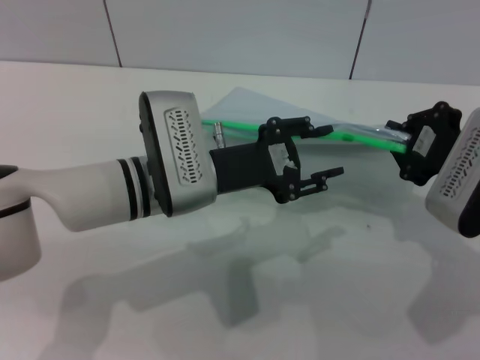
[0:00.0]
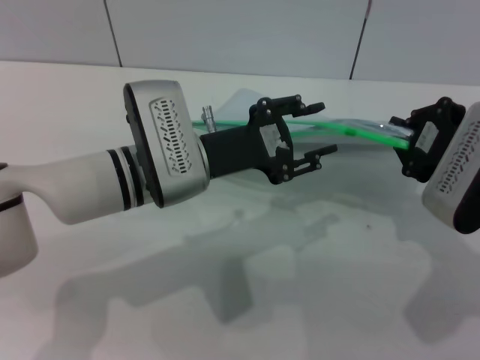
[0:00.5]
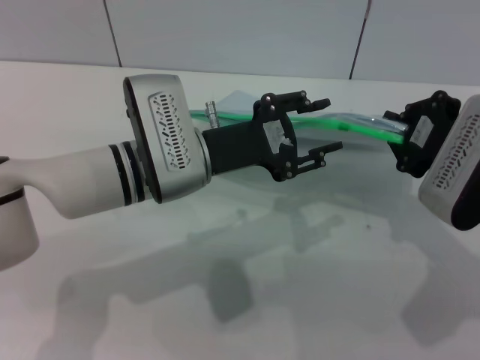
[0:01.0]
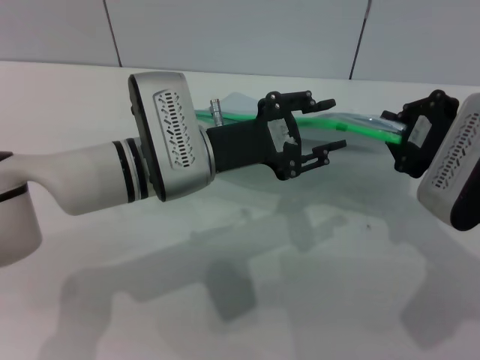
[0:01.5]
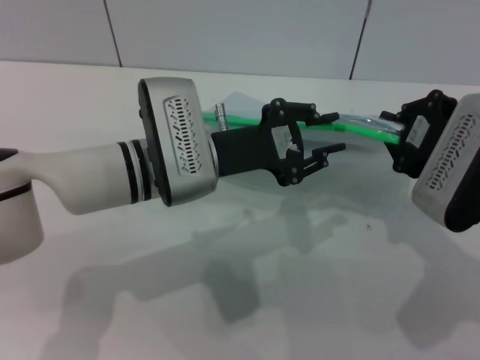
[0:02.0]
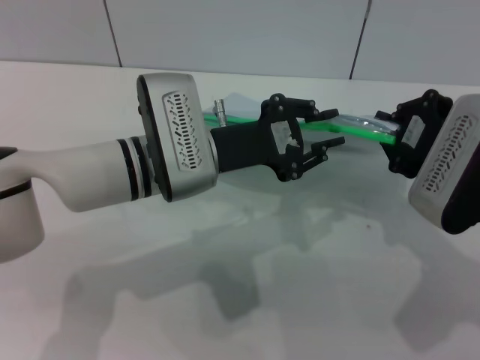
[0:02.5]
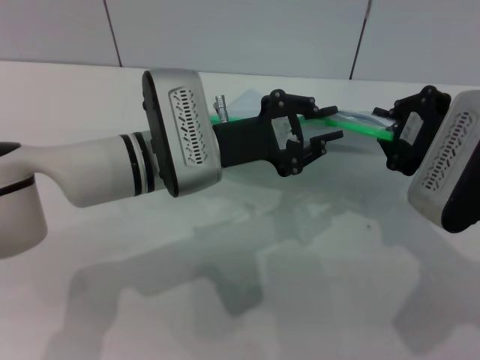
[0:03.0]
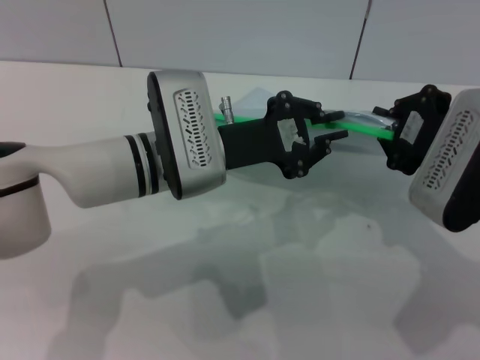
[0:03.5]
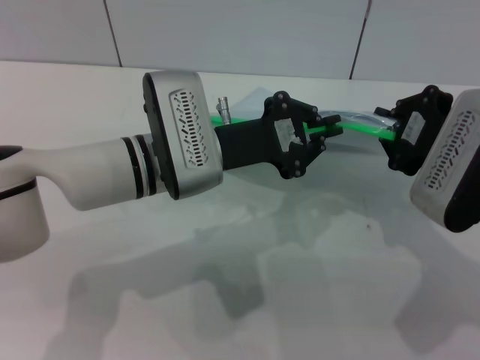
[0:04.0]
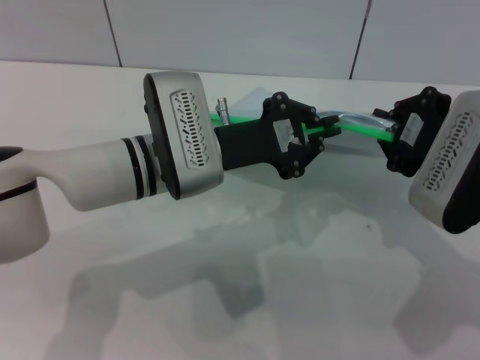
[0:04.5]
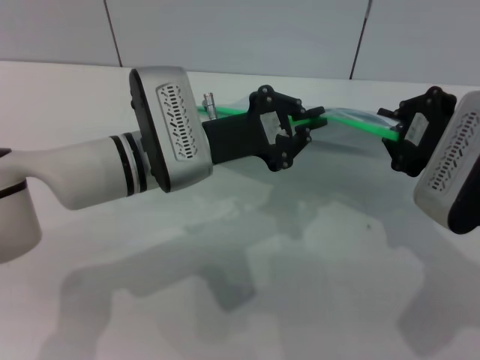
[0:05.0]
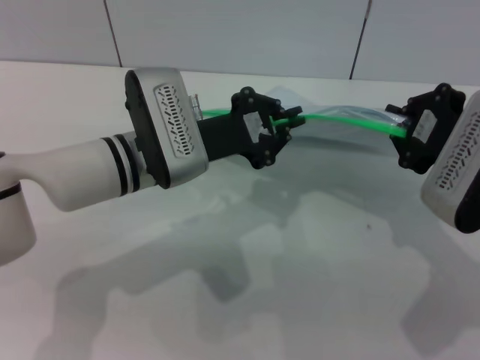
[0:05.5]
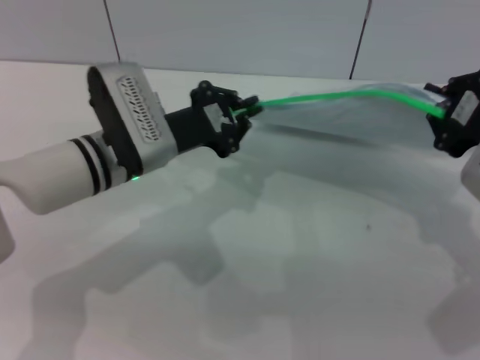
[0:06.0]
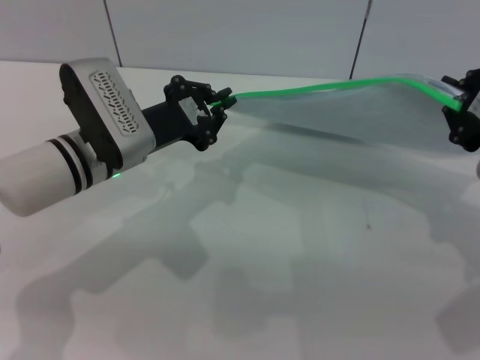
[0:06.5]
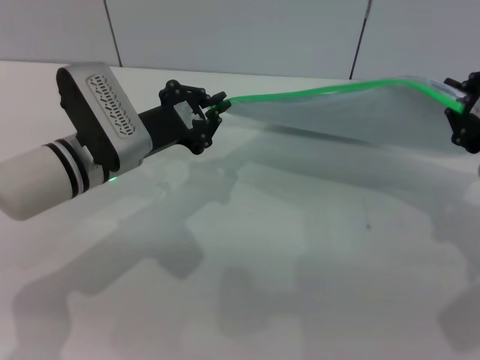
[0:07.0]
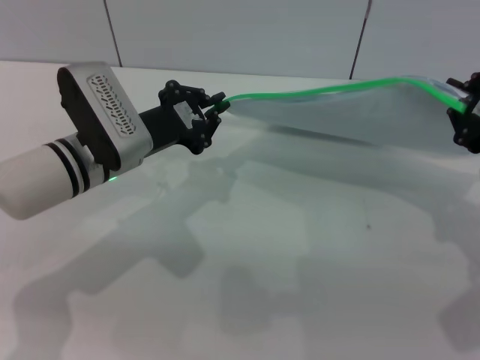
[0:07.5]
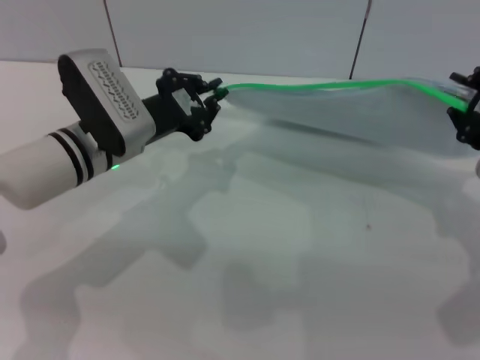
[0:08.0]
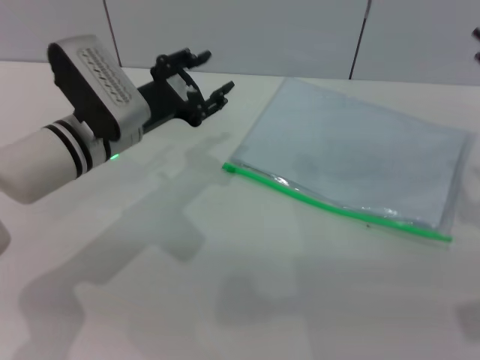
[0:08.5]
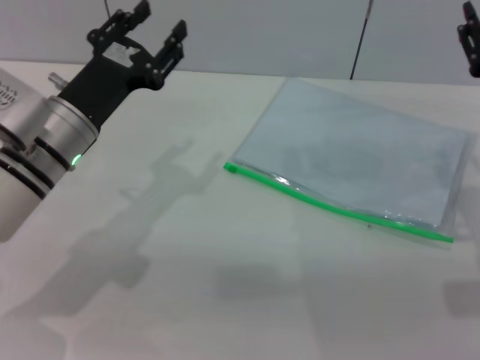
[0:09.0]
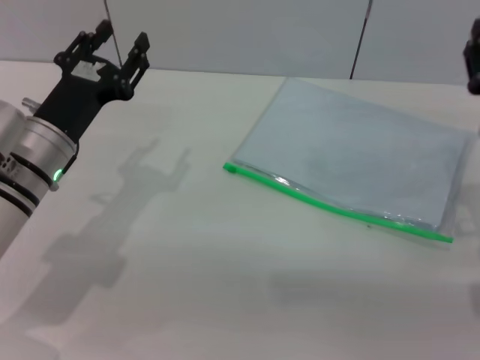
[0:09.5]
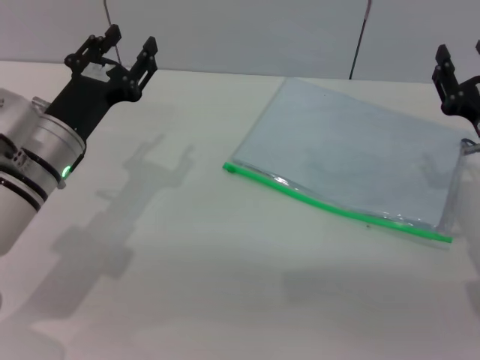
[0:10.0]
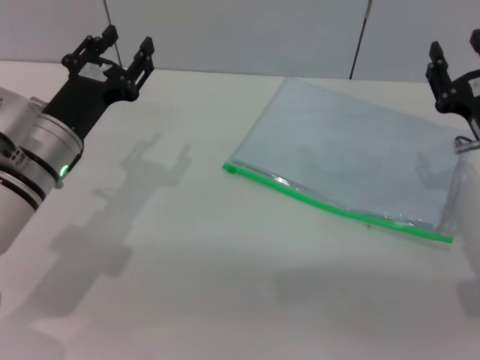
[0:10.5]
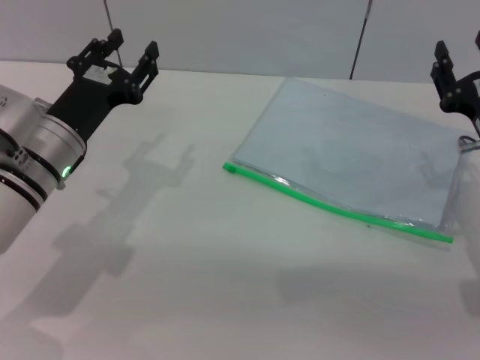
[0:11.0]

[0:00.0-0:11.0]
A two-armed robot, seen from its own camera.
Step, 0:00.0 to 0:07.5: Pulling up the zipper on the transparent plastic bag with the left gripper to close it.
0:00.0 to 0:02.0: The grippers stay close to where they were, moving slightly.
0:02.0 to 0:03.5: The left gripper closes its fingers.
0:03.5 to 0:05.5: The grippers make only small movements.
0:05.5 to 0:07.5: The left gripper heads to the left, covering about 5 cm.
0:07.5 to 0:09.0: The left gripper opens its fingers. The right gripper opens its fingers.
0:09.0 to 0:11.0: The right gripper heads downward, covering roughly 10 cm.
